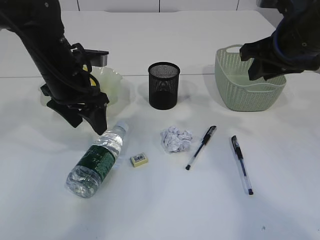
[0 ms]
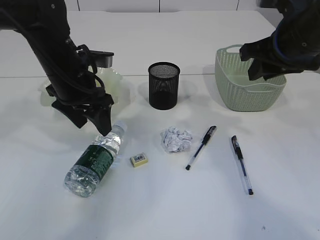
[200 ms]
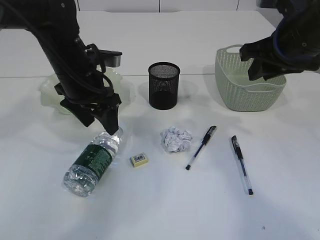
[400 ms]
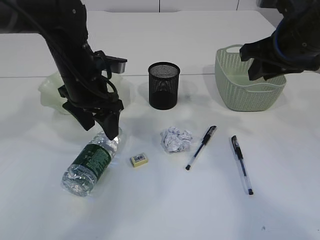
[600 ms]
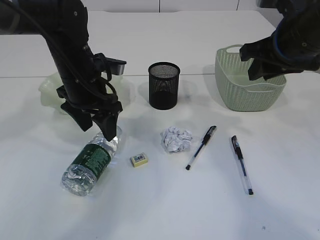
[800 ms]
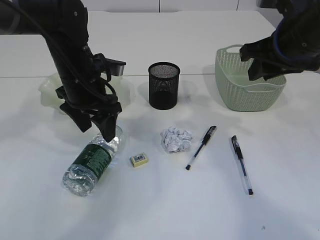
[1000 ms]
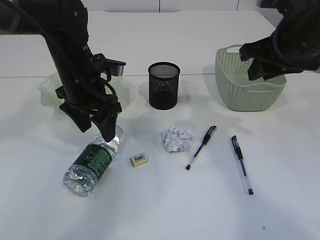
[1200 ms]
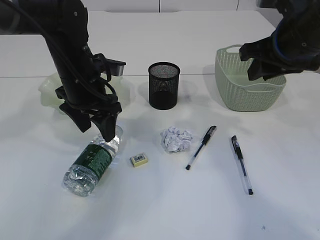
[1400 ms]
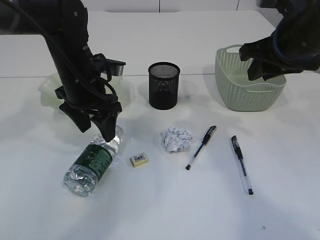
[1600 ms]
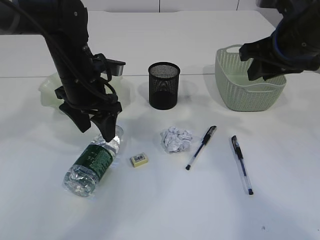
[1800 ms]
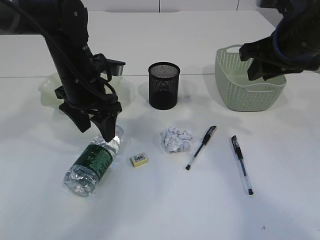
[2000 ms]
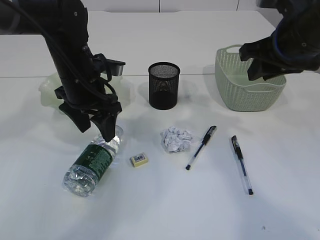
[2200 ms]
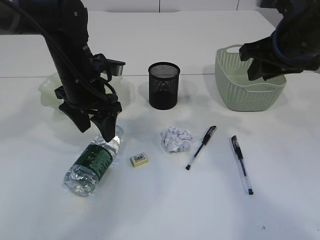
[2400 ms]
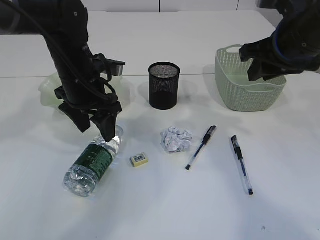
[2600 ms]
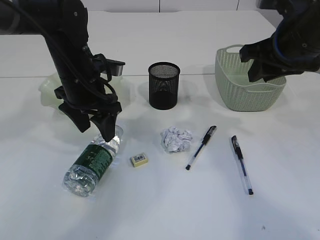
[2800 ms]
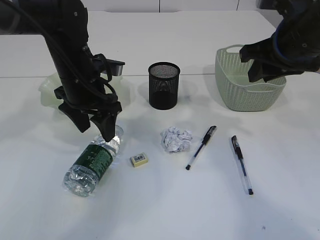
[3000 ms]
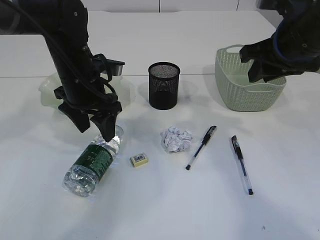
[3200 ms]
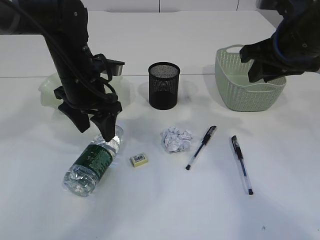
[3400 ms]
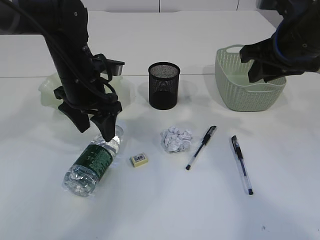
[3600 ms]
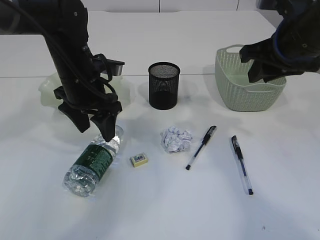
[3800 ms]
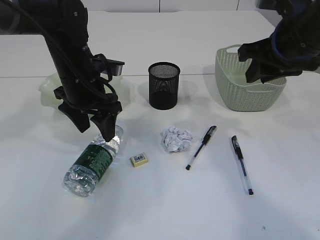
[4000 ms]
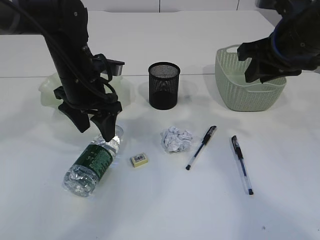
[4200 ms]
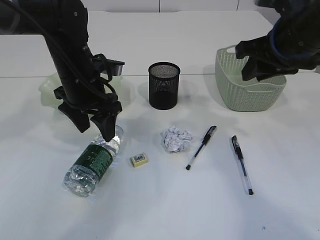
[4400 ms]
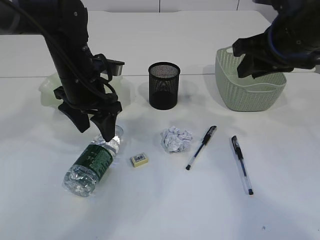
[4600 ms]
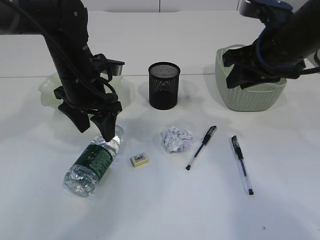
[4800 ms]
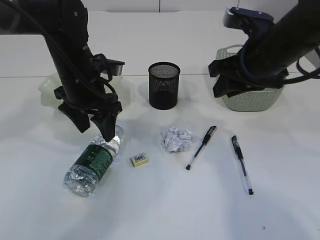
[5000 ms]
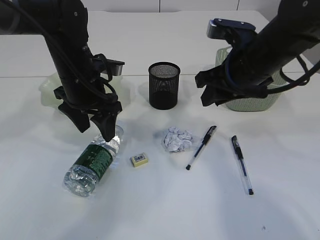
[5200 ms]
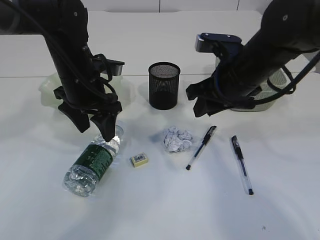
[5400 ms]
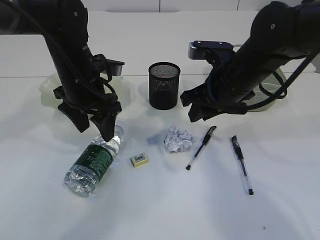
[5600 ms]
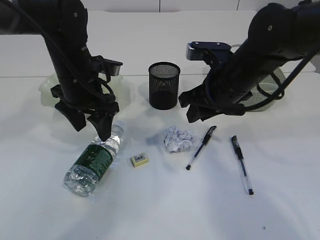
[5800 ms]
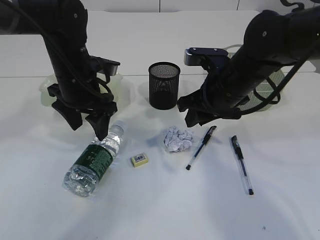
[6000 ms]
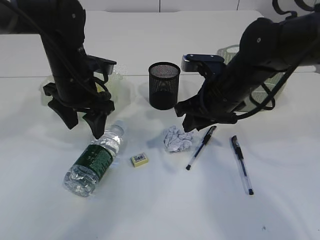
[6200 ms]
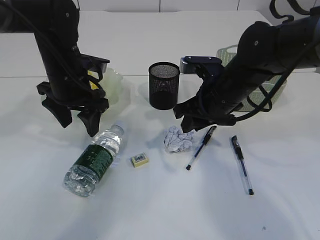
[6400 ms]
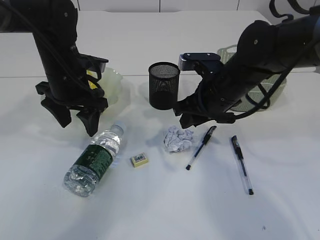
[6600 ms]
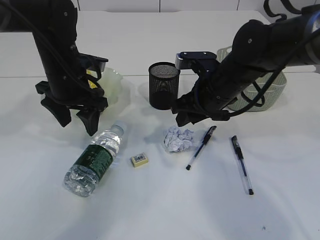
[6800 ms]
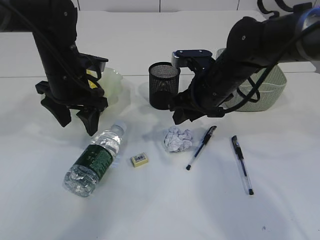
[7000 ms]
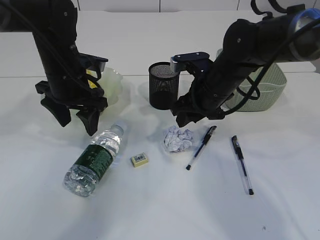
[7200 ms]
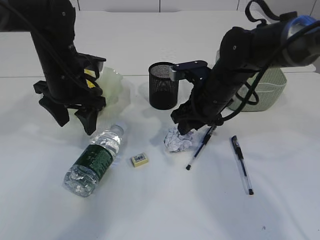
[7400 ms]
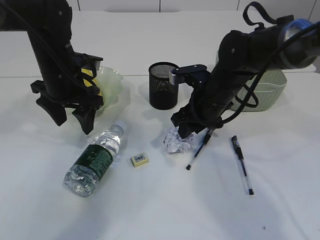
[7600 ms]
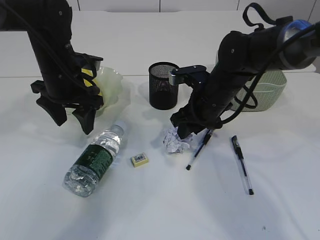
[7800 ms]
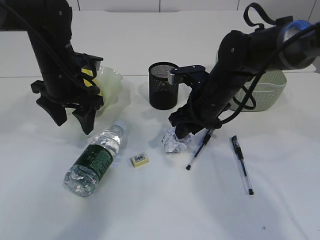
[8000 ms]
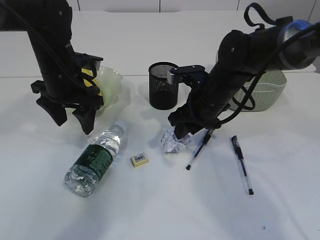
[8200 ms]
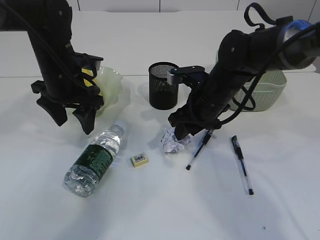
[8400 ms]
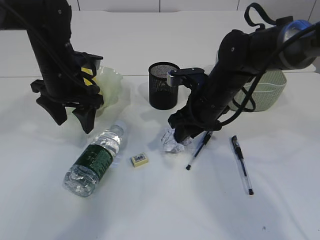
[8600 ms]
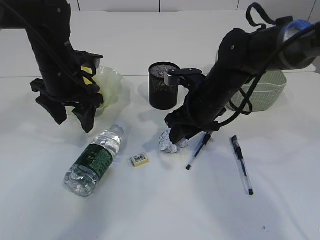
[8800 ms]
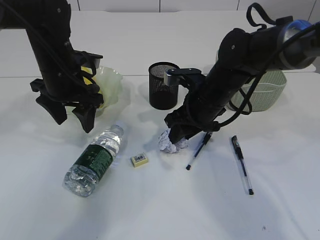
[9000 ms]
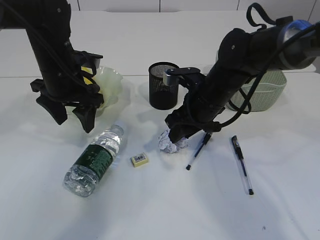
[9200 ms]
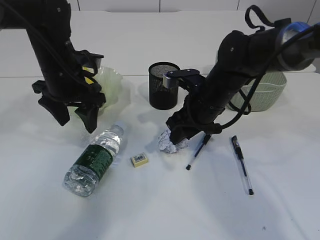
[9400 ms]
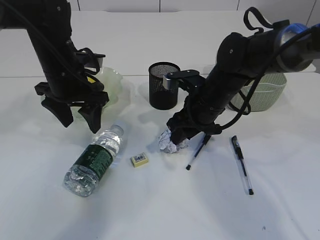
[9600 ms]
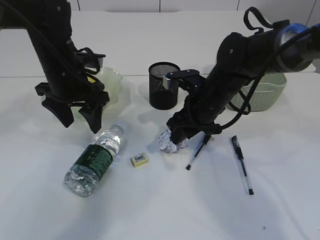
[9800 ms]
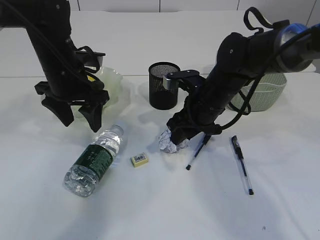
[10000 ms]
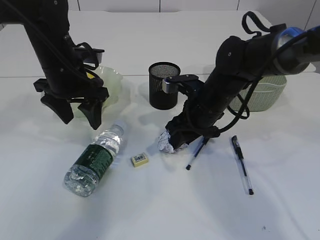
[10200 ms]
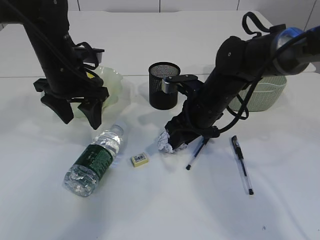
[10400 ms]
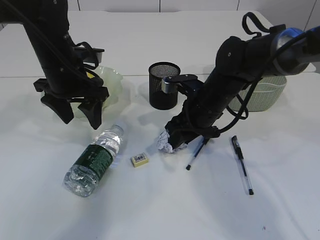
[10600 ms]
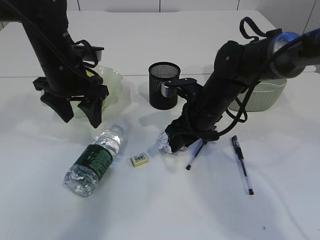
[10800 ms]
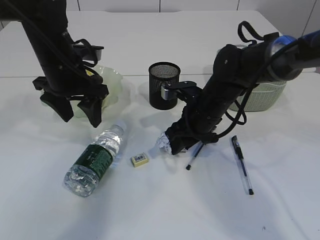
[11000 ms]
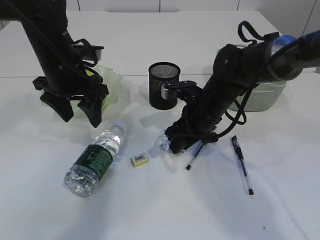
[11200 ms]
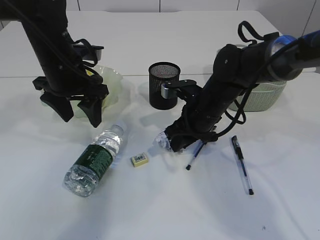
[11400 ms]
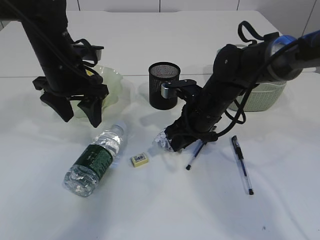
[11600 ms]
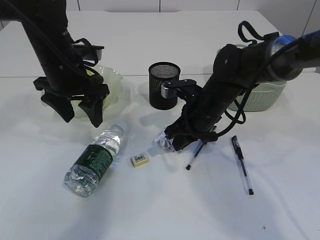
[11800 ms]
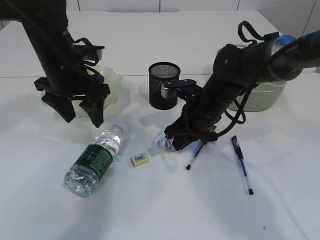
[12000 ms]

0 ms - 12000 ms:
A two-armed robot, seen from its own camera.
0 ms - 1600 ms: The grippers stay close to where they were, moving slightly.
1600 ms - 4400 ms: The two grippers keep their place.
4400 ms - 6000 ms: The right gripper shifts about 10 cm downward and to the left.
6000 ms - 7600 ms: The right gripper moves approximately 5 cm.
7600 ms - 10400 ms: The grippers make only small movements.
10400 ms - 12000 ms: The right gripper closes.

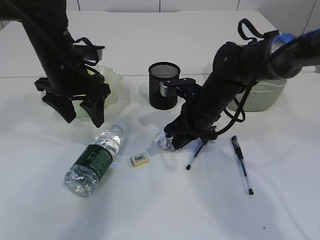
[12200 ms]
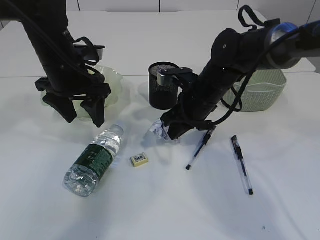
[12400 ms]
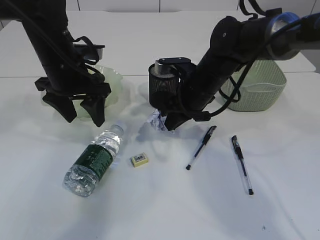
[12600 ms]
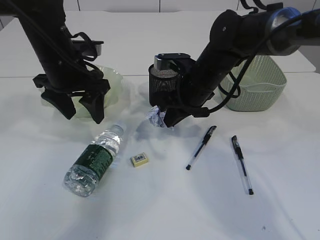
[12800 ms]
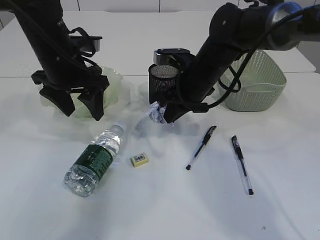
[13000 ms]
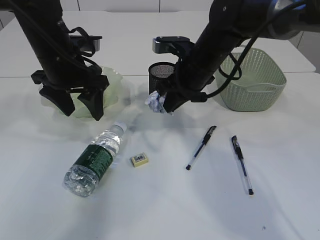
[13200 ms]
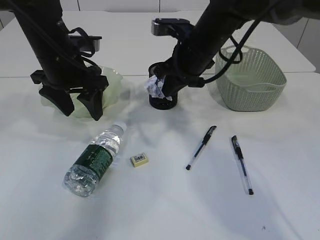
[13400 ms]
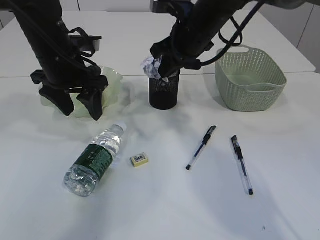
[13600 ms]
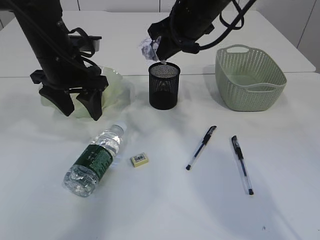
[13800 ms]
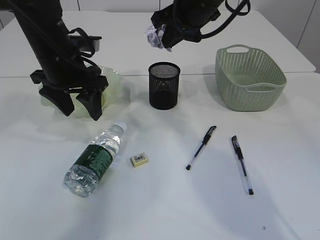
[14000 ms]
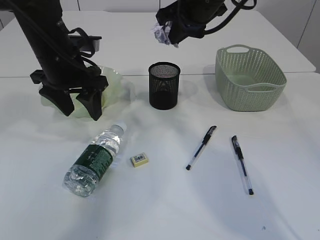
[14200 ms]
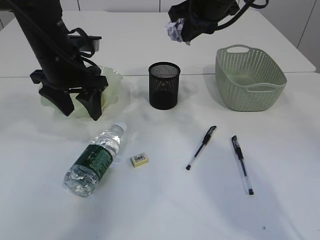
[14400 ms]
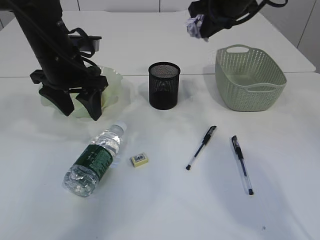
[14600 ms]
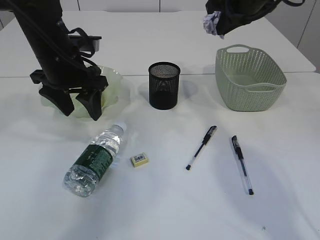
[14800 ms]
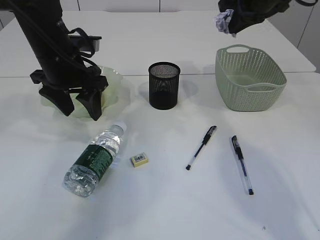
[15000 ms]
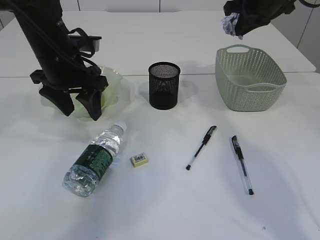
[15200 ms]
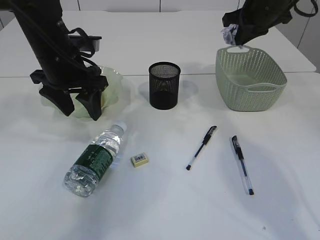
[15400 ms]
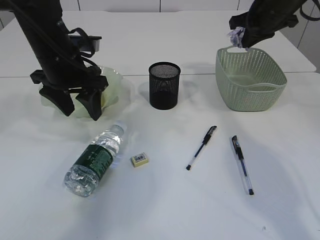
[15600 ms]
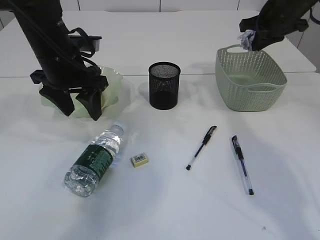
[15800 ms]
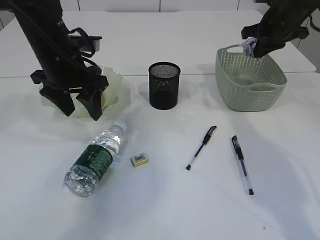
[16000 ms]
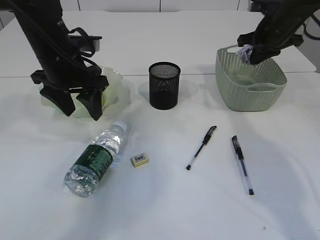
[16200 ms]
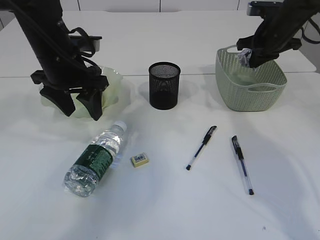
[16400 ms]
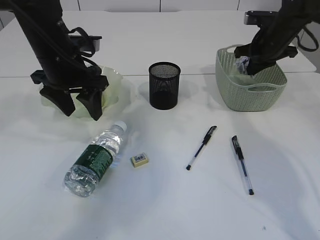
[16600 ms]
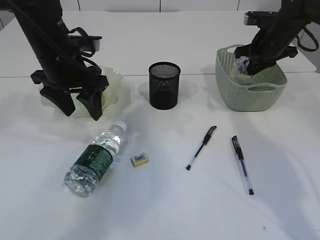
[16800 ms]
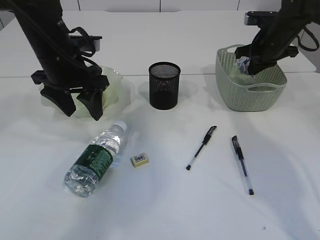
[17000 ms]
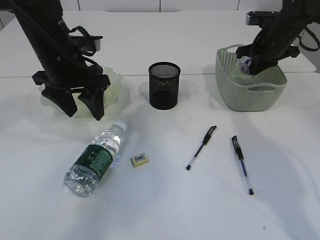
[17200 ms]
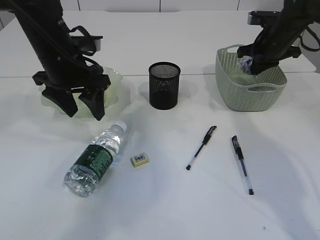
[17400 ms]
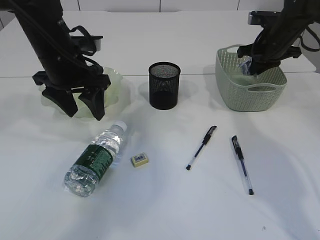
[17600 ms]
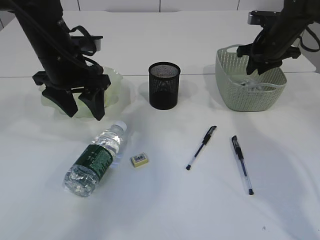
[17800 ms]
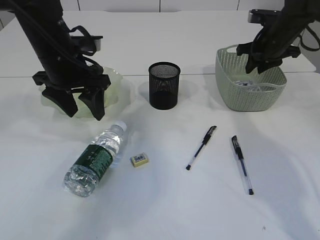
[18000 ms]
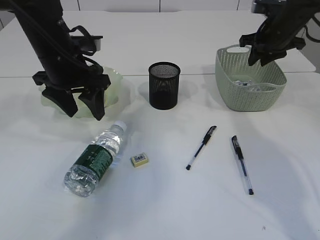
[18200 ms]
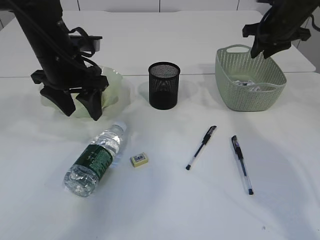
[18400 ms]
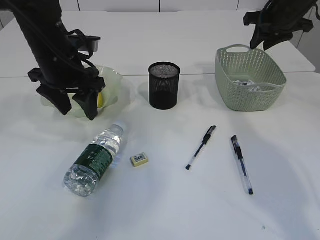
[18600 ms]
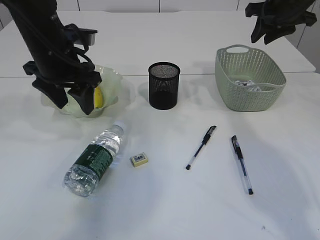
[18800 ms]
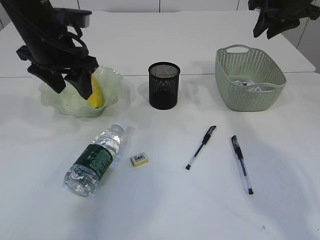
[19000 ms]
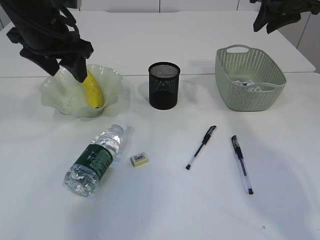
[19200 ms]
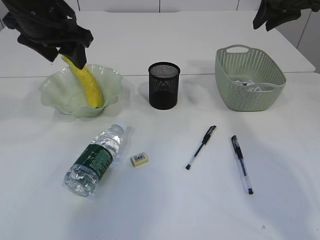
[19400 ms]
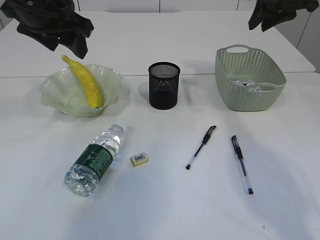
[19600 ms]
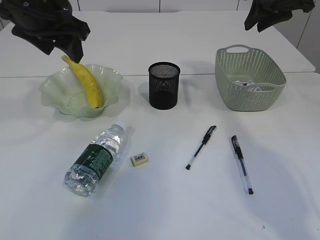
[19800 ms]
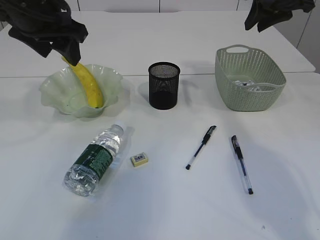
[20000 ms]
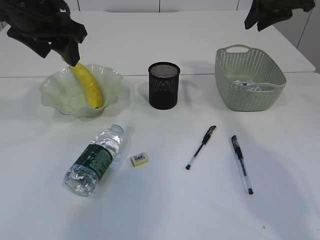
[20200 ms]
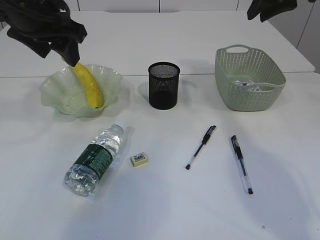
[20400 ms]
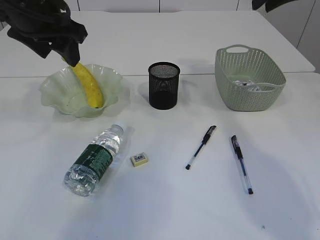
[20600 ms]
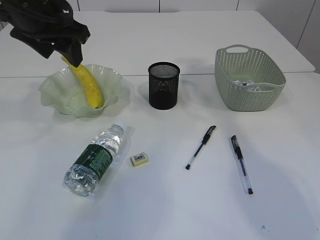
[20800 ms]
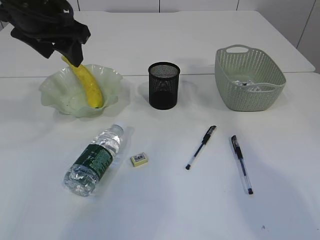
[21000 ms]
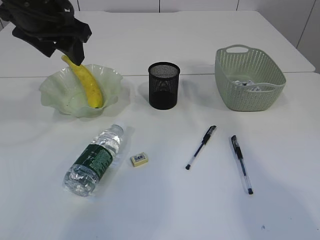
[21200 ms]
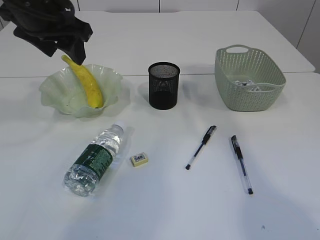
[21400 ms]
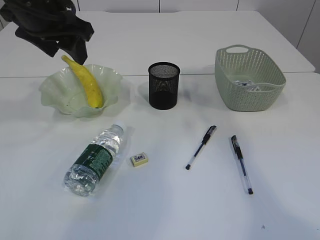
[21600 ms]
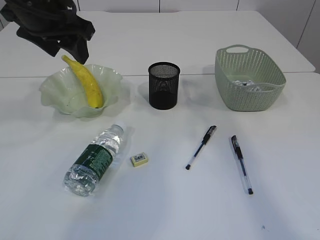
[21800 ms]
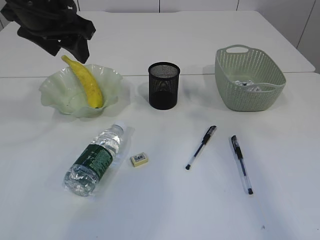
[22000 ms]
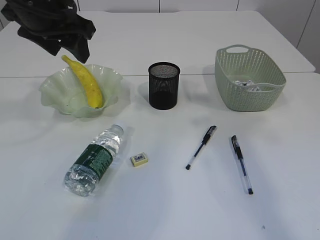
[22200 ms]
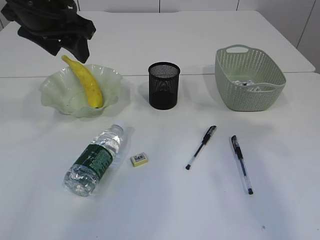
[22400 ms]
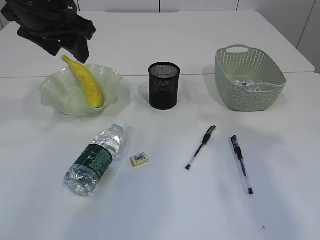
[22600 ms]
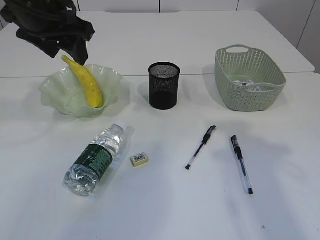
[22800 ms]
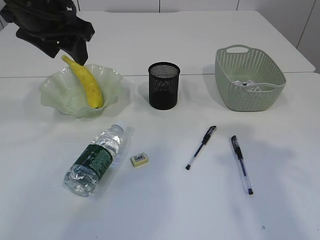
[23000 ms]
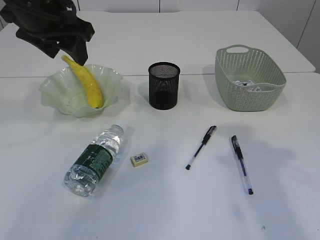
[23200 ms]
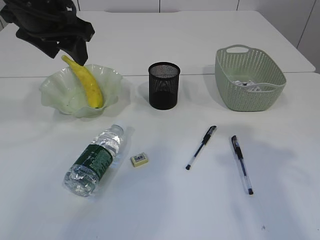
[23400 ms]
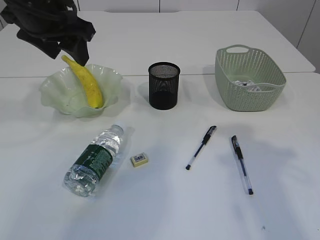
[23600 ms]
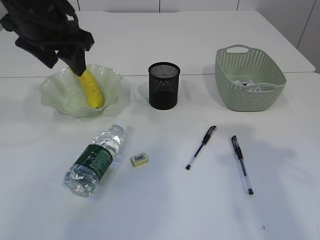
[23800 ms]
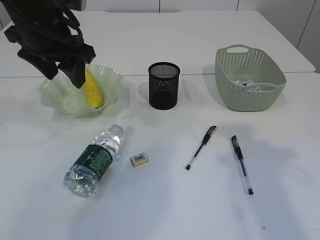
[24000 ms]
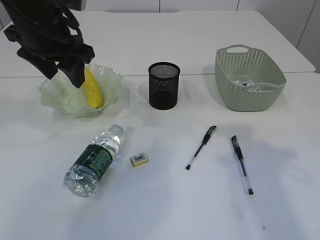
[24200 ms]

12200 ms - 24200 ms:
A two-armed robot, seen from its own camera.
Step, 13000 ms - 18600 ms: Place the waste paper in the basket.
12200 ms - 13800 ms: The right gripper moves upward, about 15 cm.
13800 ms - 15200 ms: The right gripper is displaced to the right by roughly 15 cm.
15200 ms - 16600 ms: The right gripper is displaced downward and to the right by approximately 10 cm.
16600 ms - 18200 ms: The right gripper opens its fingers.
18200 ms - 19800 ms: Both grippers move upward, about 10 cm.
19800 ms - 21200 ms: The right gripper moves upward and backward, some 15 cm.
22600 ms - 24200 ms: The grippers stay close to where they were, moving slightly.
